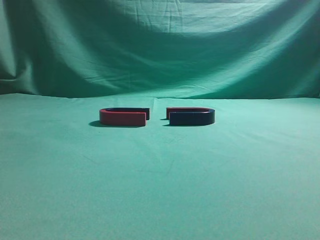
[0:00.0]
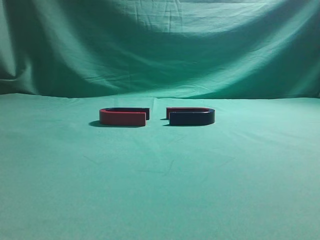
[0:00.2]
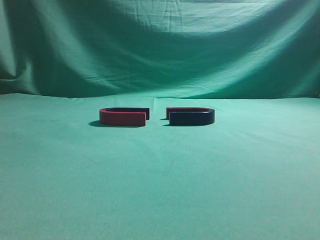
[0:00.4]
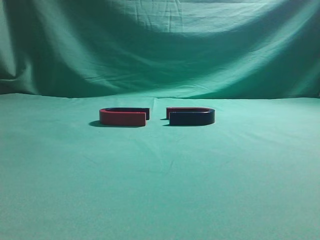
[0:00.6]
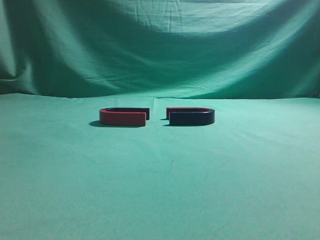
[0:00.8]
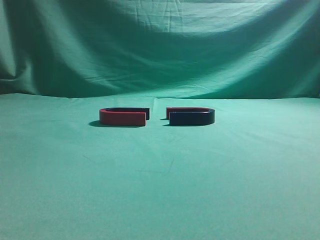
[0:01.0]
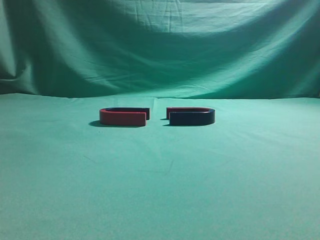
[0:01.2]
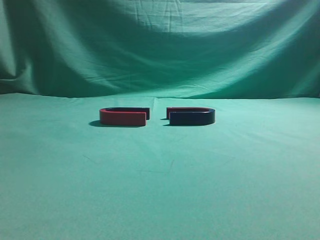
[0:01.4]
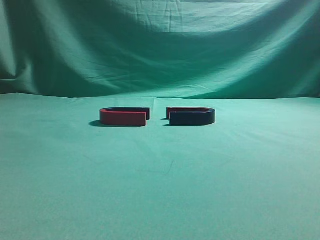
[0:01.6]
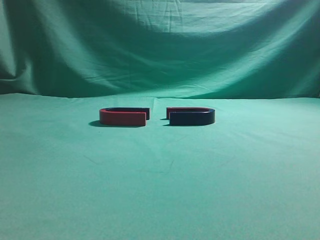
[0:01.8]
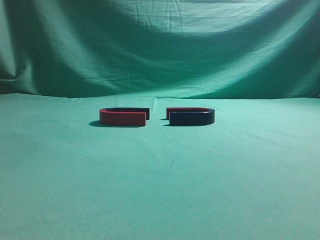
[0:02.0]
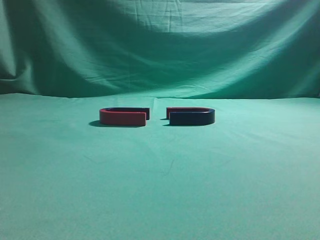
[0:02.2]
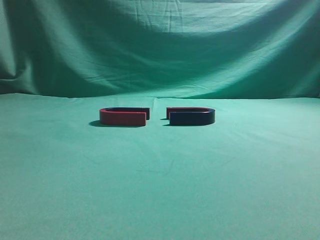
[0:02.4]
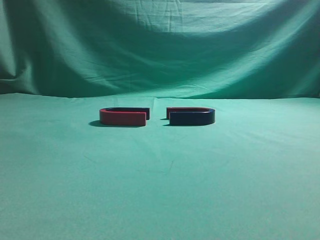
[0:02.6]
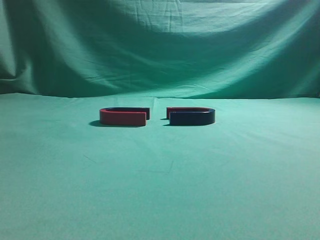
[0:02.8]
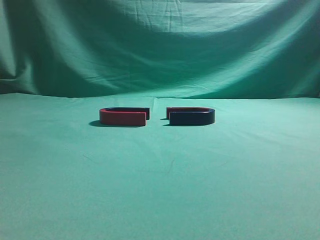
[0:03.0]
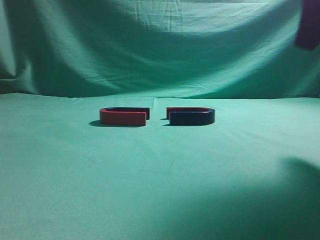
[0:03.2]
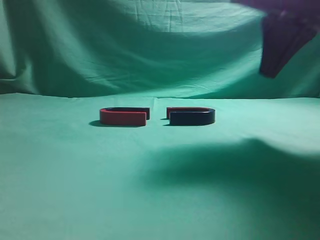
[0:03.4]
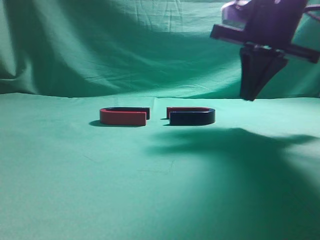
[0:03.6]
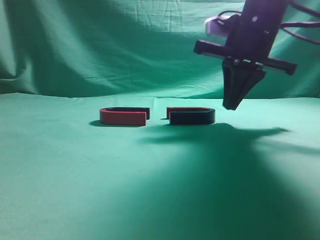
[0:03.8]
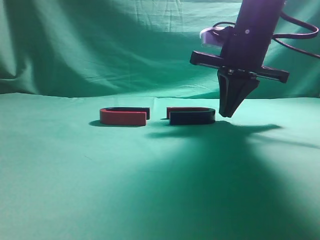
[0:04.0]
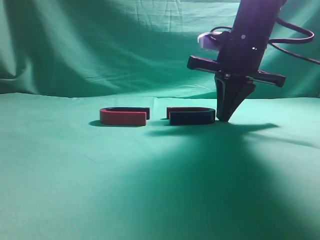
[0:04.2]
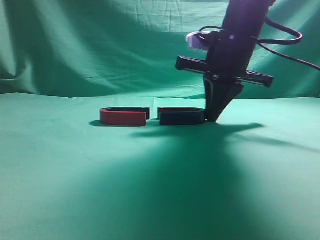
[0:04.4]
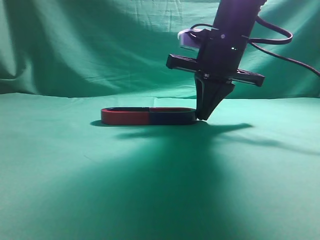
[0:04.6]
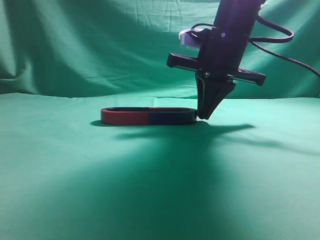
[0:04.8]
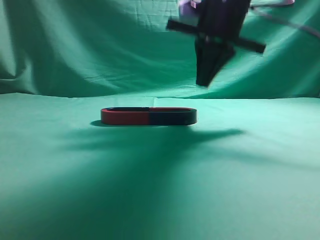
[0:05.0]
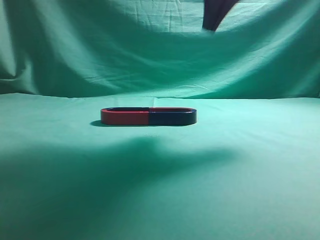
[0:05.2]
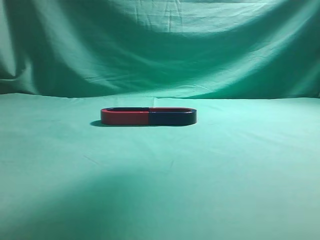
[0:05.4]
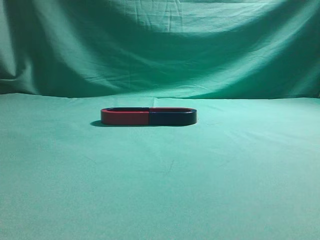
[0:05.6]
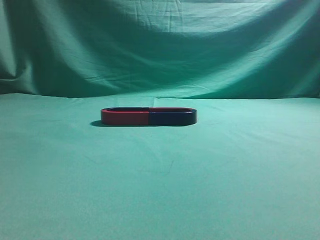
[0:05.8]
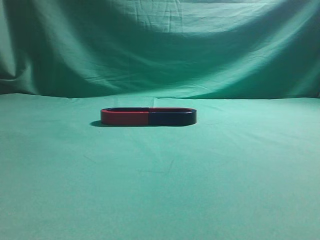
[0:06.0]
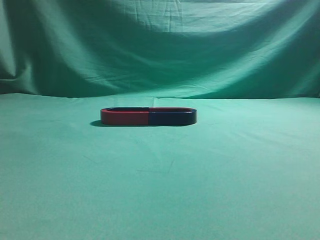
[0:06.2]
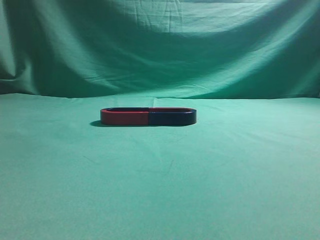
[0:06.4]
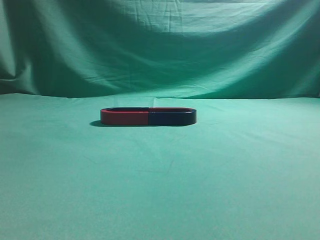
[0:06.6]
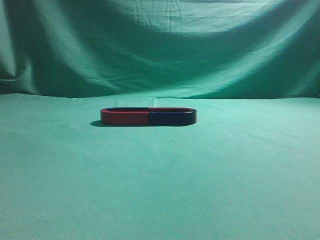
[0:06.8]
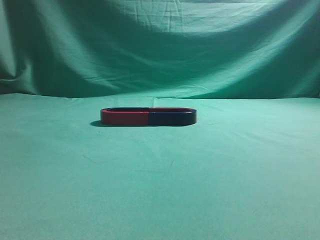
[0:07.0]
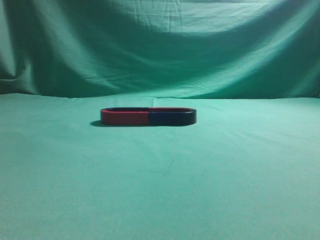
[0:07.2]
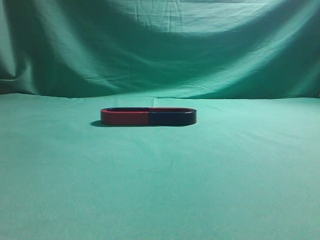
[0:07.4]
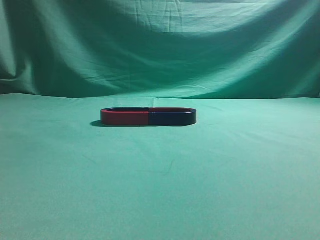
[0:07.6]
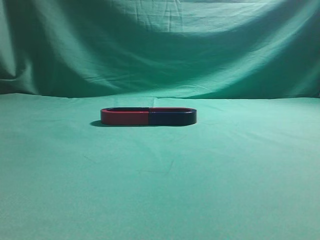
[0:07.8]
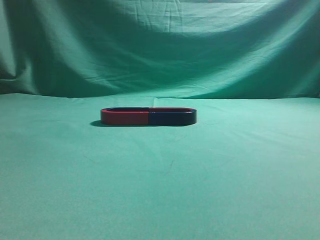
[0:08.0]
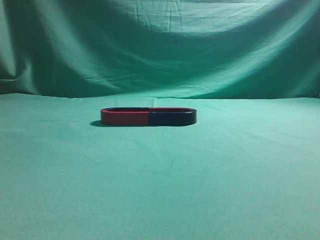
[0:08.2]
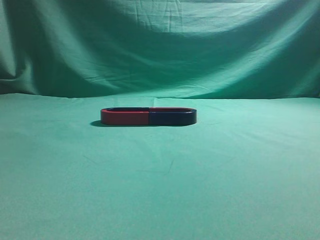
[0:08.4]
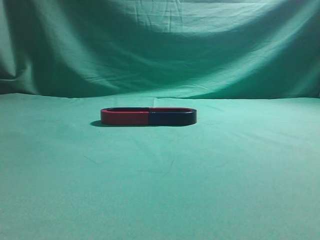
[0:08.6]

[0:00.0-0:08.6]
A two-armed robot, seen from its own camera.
Task of the whole recording: push the magnet on the table from its original position to another position.
Step, 0:00.0 to 0:04.8: Push the magnet on the right to connect the magnet on the left.
0:02.8 to 0:04.4: The right gripper moves forward, to the left and downward, approximately 30 cm.
0:04.4 to 0:05.8: The right gripper is displaced upward and backward by roughly 35 cm.
